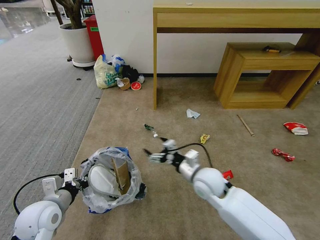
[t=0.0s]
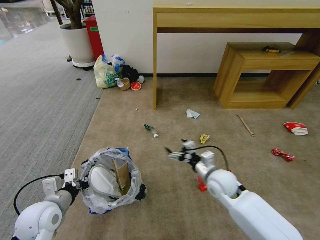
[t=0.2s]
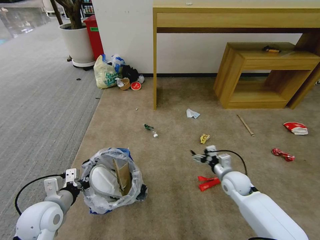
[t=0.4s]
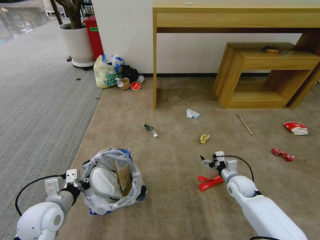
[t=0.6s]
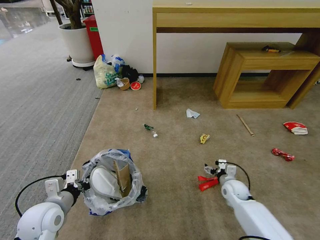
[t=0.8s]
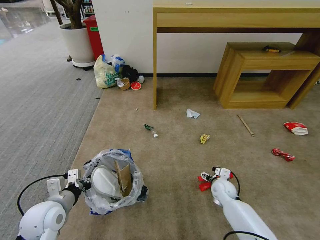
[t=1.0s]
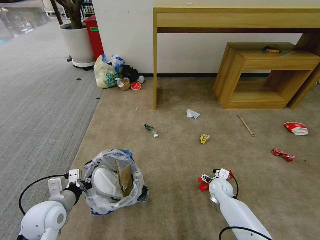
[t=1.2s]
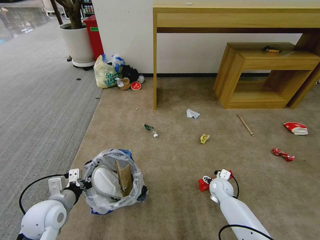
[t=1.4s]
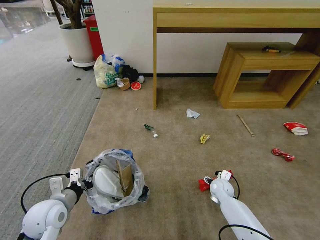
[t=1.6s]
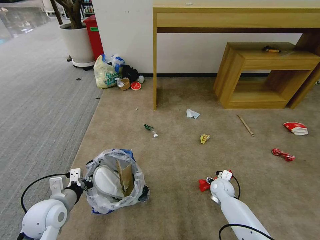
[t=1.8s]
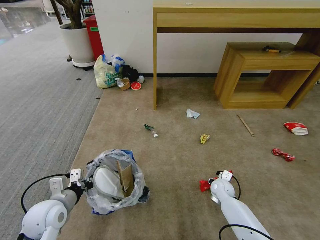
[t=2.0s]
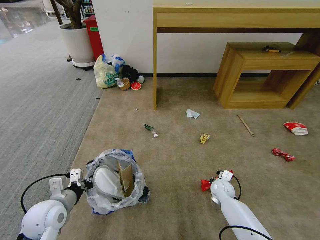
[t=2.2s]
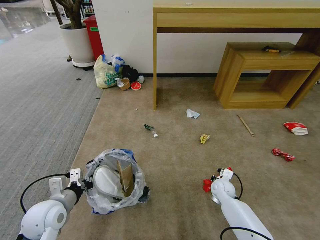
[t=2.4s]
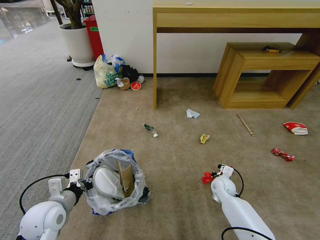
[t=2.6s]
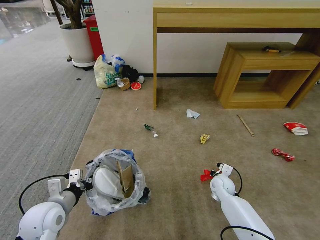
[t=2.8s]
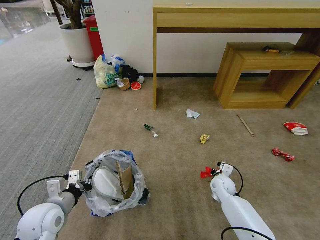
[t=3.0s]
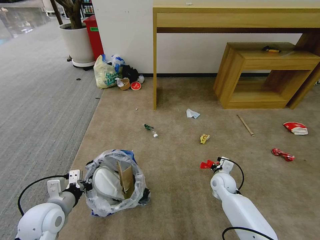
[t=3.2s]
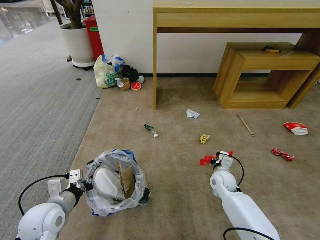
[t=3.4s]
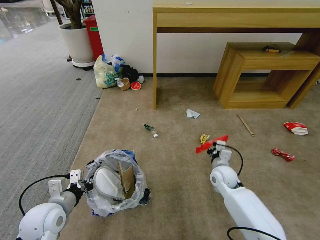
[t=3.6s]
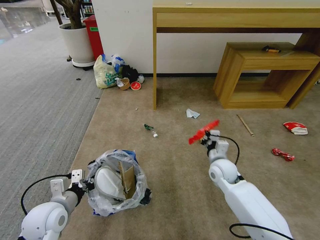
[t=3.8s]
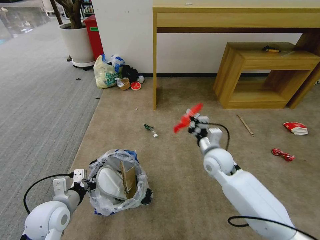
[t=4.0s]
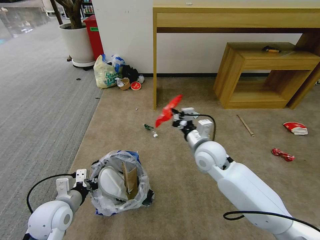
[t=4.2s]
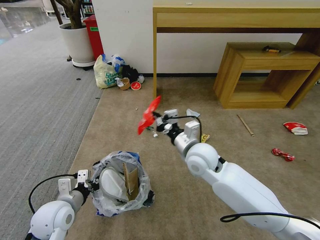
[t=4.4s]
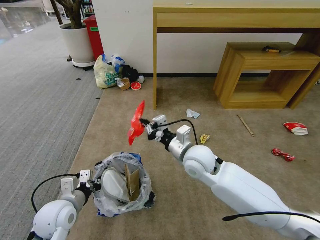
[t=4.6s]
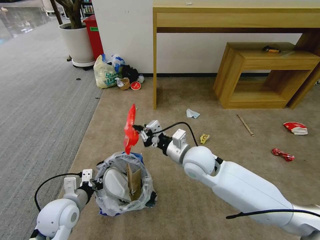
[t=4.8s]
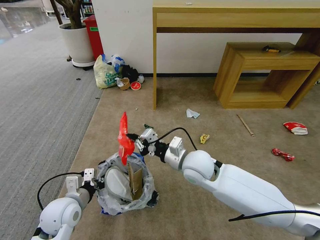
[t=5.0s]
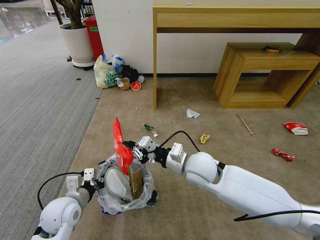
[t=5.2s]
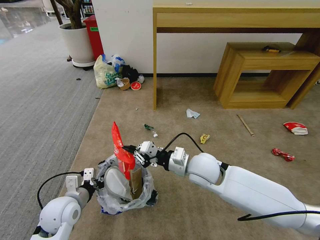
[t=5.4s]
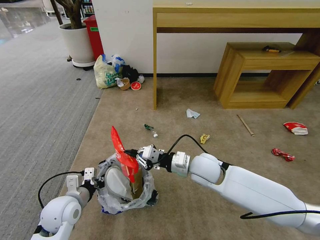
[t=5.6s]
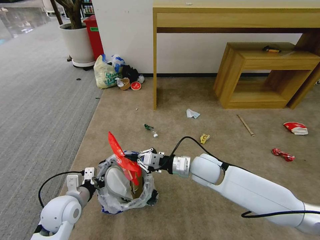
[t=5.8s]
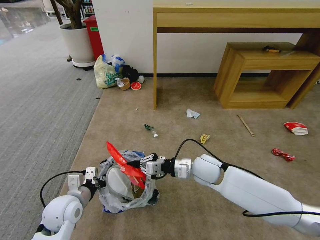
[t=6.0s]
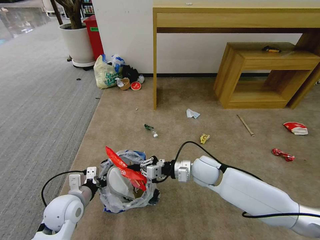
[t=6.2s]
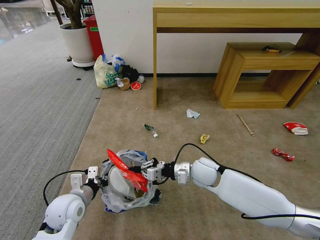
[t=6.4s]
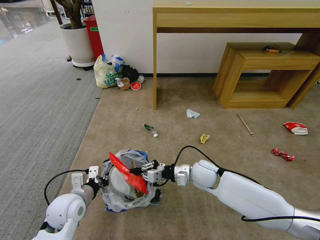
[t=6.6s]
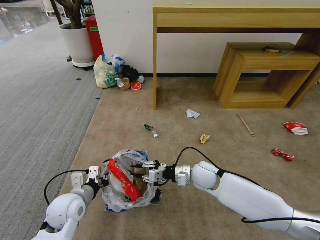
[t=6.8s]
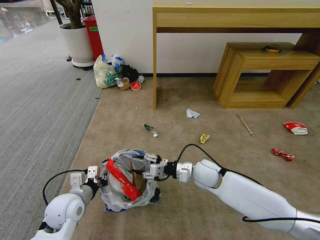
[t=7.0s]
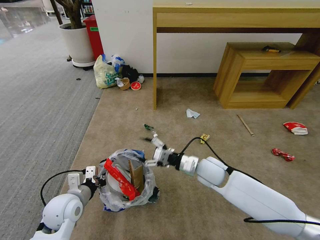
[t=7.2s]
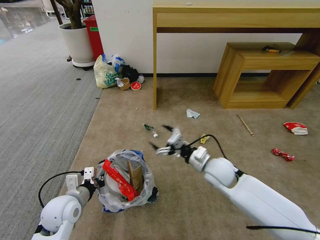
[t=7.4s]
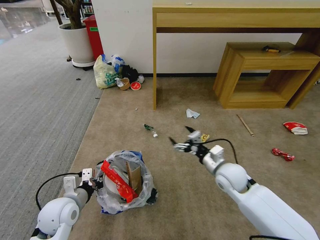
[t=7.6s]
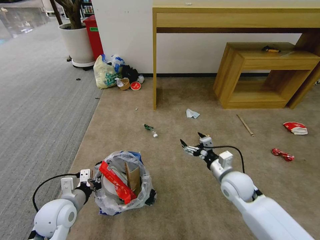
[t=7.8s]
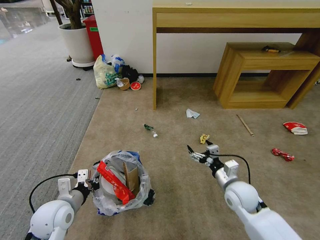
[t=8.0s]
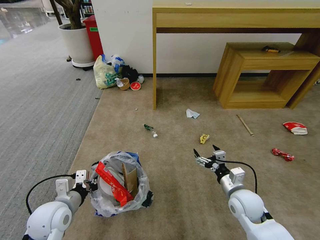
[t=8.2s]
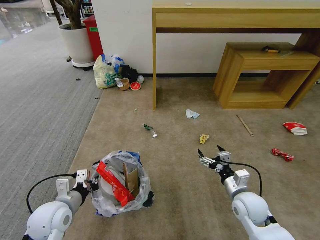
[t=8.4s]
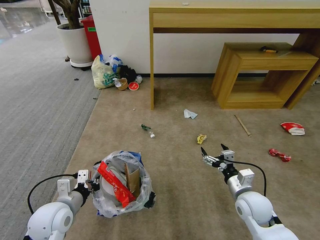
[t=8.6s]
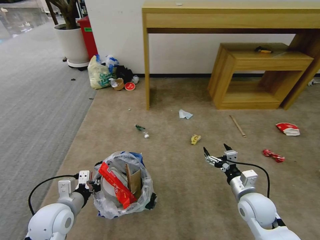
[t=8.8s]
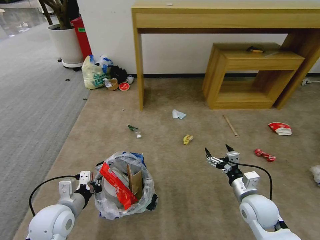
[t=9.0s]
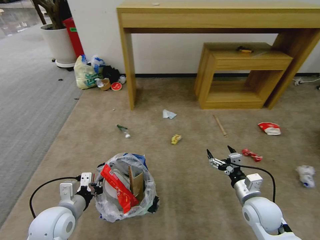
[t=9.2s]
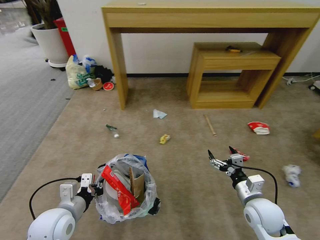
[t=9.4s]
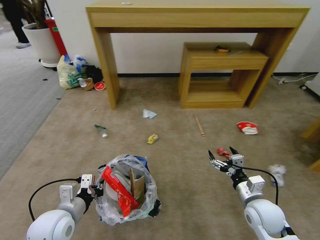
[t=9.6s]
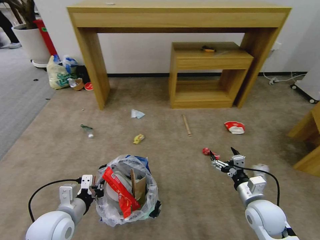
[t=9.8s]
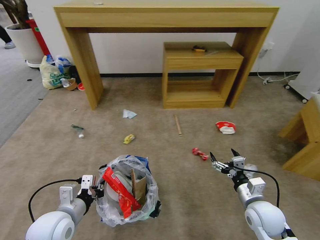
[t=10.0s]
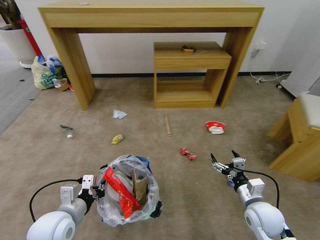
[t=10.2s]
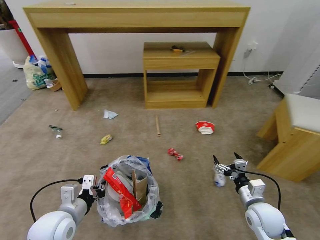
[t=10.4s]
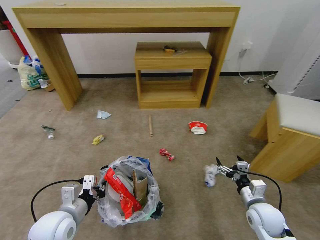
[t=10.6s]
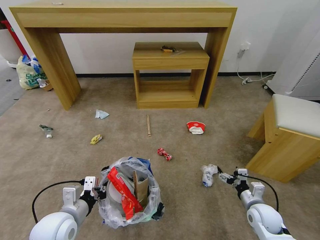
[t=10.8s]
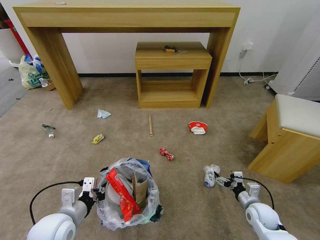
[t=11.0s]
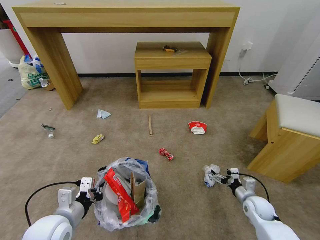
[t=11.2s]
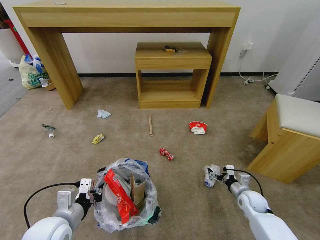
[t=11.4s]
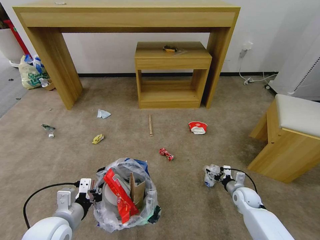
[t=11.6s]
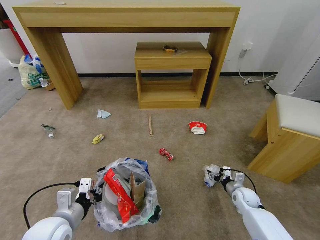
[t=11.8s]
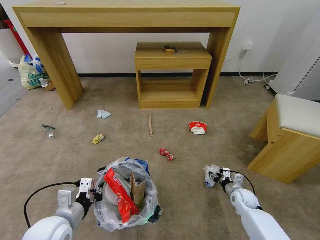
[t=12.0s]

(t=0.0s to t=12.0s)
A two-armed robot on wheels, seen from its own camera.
Task of the whole recording: Pick up the trash bin and place the garbage on the floor into it.
t=0.0s - t=1.6s: The right gripper goes about 20 cm downward and to the right.
t=1.6s - t=3.0s: The right gripper closes.
t=3.0s - t=4.4s: The right gripper goes some 30 cm upward and to the left.
t=4.4s - t=6.0s: The right gripper goes about 5 cm downward.
t=6.0s - t=7.6s: The right gripper heads to the right, covering about 10 cm, and opens its fingers.
t=7.6s - t=9.0s: The right gripper travels backward and to the right by about 10 cm.
t=10.4s - t=12.0s: The right gripper heads downward and forward, covering about 15 cm, and closes its fingers.

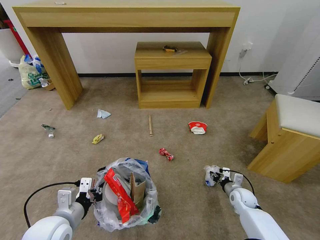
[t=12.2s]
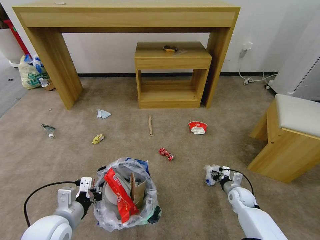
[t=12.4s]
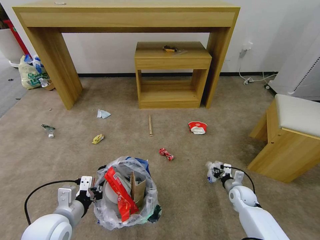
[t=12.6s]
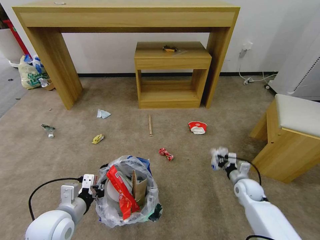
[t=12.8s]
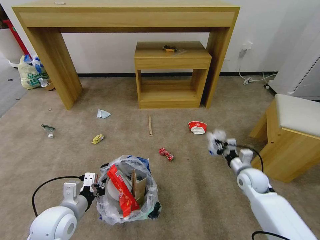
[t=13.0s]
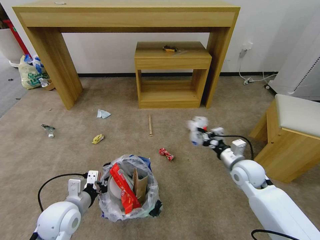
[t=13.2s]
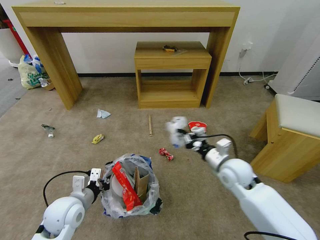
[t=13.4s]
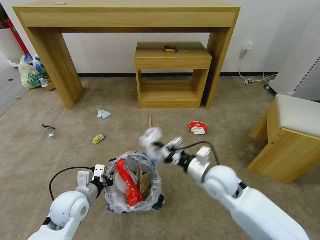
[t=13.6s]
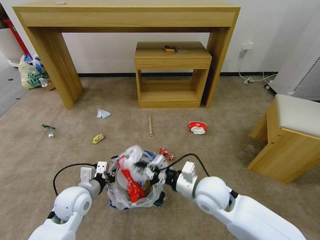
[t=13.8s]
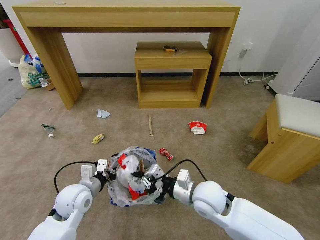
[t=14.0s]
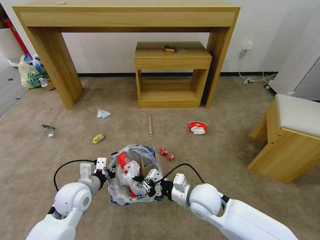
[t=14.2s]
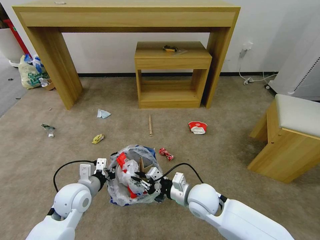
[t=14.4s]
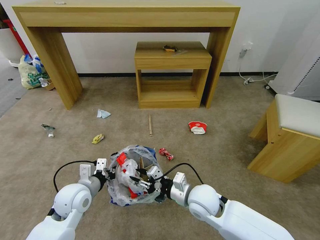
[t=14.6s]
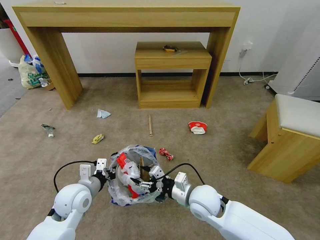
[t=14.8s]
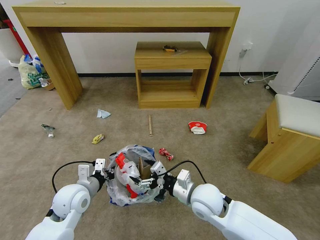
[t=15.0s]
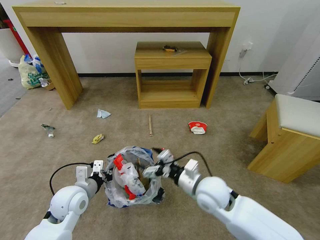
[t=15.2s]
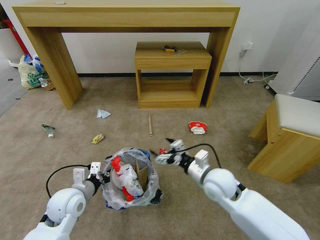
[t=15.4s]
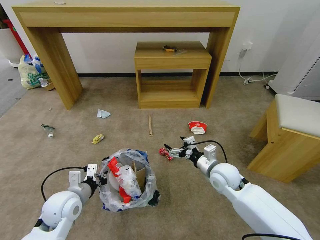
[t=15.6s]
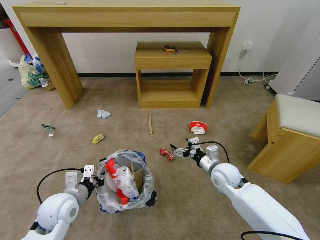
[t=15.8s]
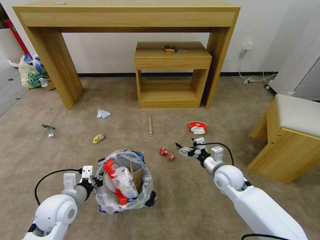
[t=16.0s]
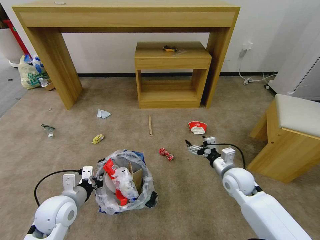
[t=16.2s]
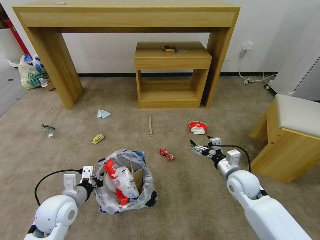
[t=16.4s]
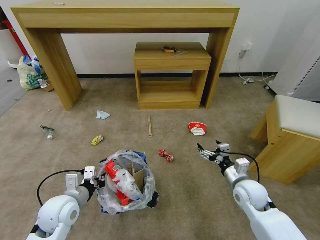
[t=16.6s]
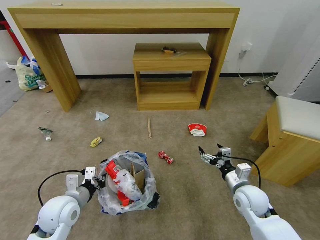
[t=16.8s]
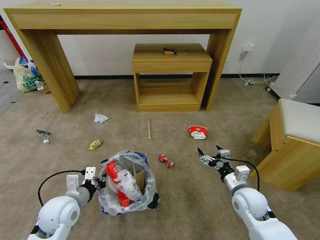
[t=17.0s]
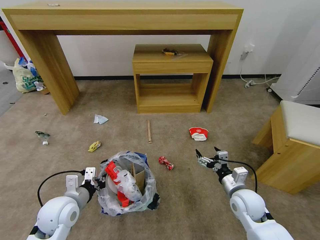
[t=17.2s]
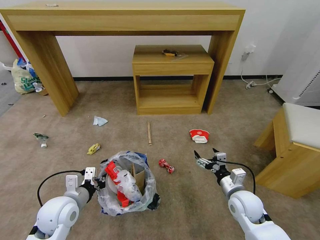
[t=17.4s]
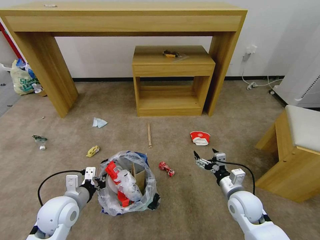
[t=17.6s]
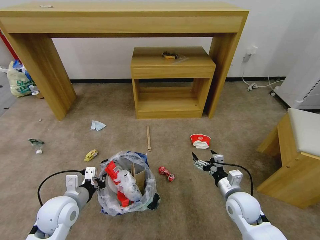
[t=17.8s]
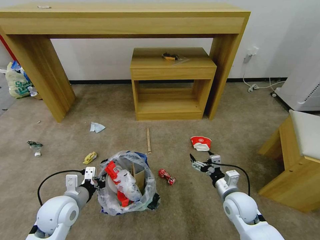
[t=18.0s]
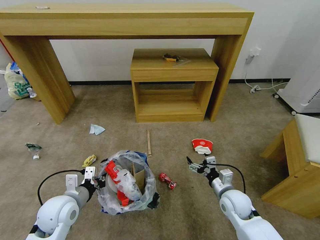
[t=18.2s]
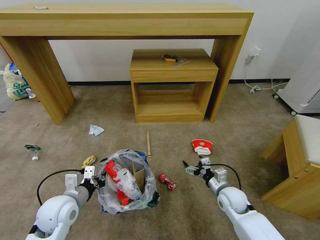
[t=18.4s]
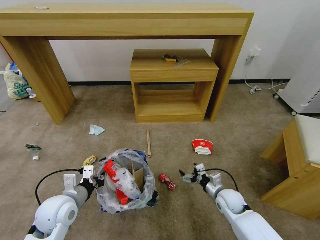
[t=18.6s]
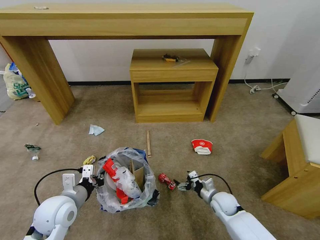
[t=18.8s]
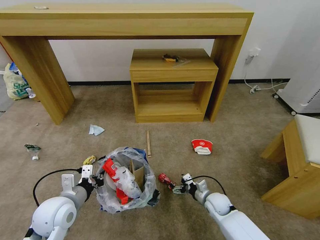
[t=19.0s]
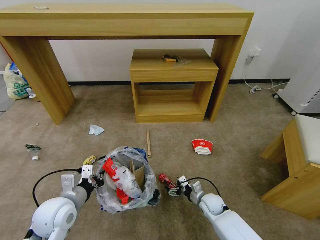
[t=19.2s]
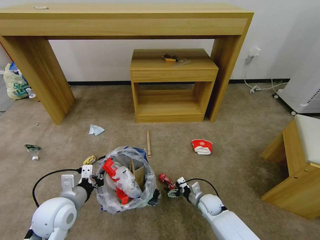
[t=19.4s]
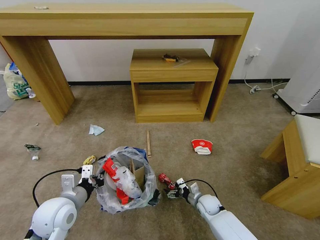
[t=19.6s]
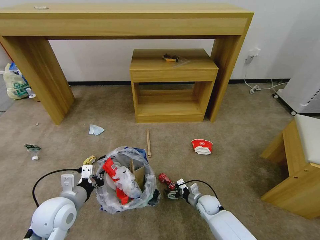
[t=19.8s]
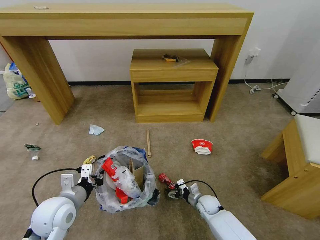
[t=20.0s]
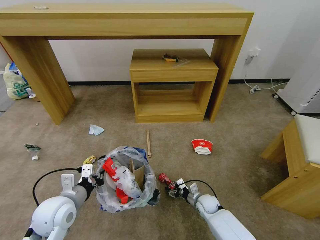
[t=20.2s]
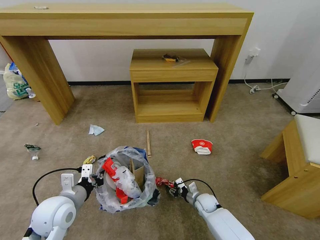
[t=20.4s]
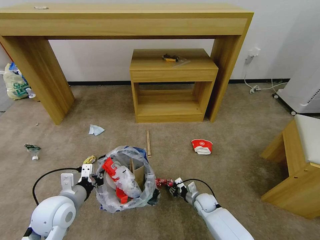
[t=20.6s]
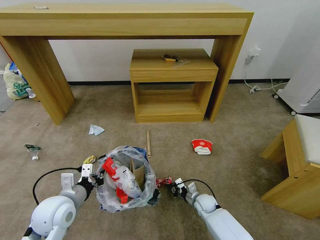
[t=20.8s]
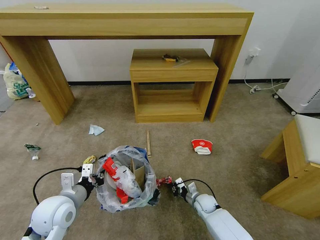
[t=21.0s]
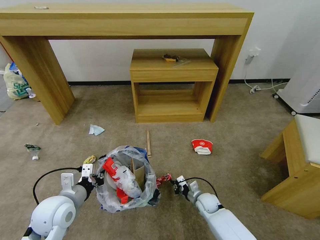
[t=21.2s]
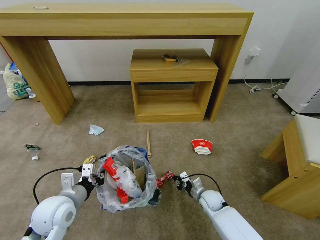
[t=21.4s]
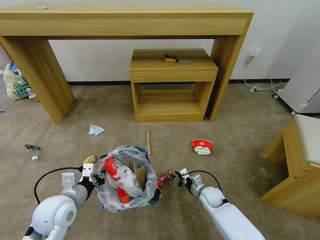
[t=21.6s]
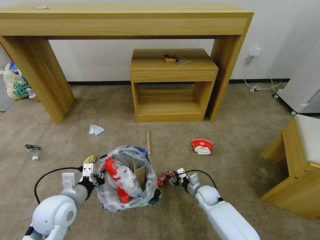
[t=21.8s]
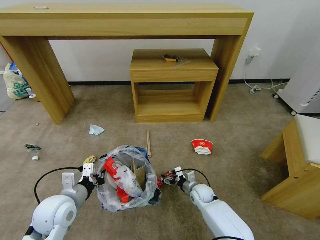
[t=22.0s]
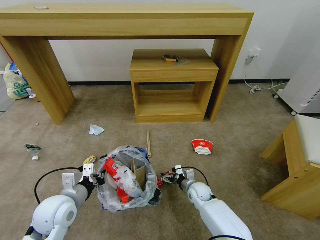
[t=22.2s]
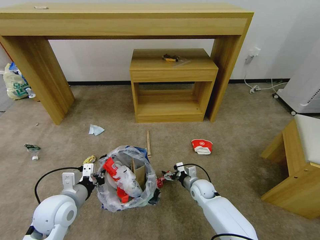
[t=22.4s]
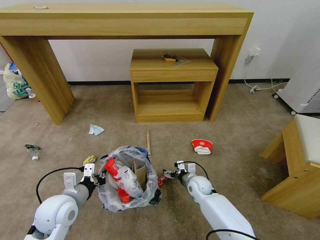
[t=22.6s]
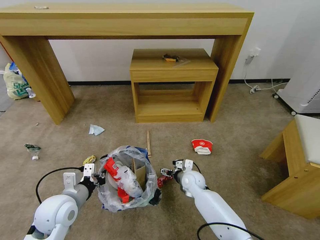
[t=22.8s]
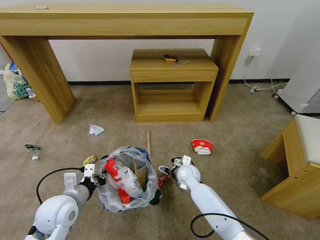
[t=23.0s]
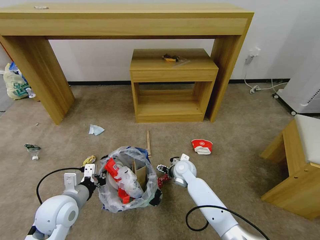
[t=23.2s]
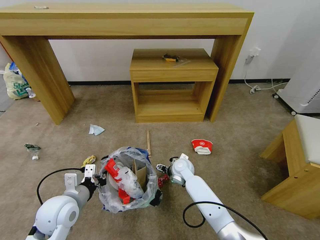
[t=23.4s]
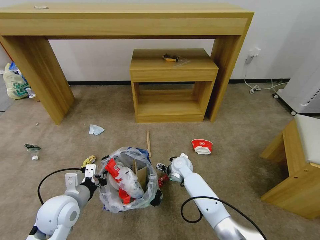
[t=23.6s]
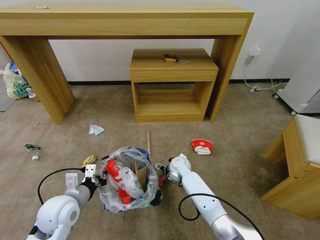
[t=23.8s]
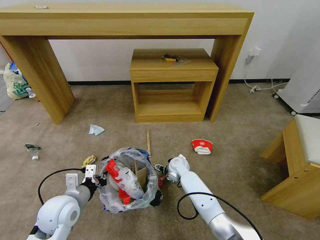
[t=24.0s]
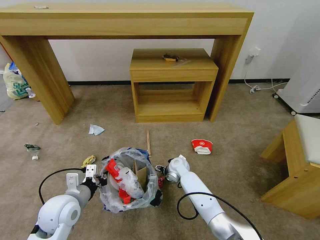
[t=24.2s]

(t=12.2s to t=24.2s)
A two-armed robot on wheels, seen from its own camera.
Task of the whole recording: Pick up the trash bin and place the garbage on the floor into it.
t=12.2s - t=13.8s: The right gripper heads upward and to the left, covering approximately 30 cm, while the left gripper moves forward, about 10 cm.
t=13.8s - t=15.2s: The right gripper opens.
t=15.2s - t=16.6s: The right gripper travels to the right by some 15 cm.
t=16.6s - t=18.2s: The right gripper ends up approximately 5 cm from where it was.
t=18.2s - t=19.8s: The right gripper shifts some 15 cm downward.
t=19.8s - t=21.2s: The right gripper closes its fingers.
t=21.2s - t=22.6s: The right gripper shifts about 5 cm upward, and opens.
t=22.6s - t=24.2s: The right gripper travels to the left and forward by about 10 cm.
